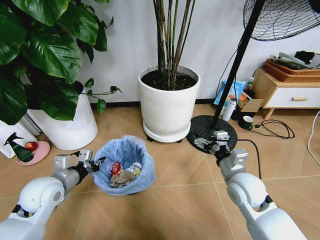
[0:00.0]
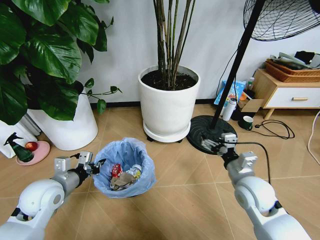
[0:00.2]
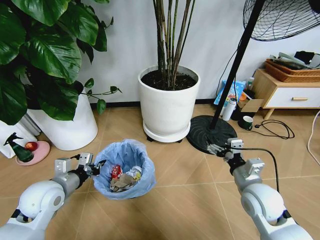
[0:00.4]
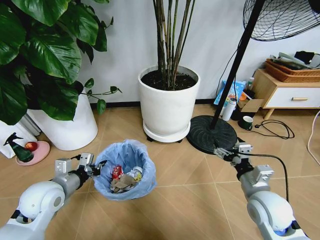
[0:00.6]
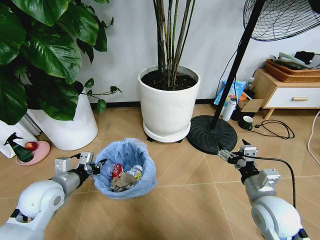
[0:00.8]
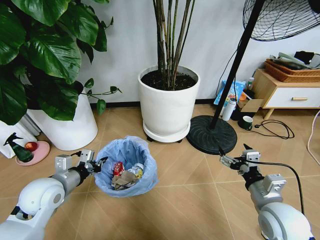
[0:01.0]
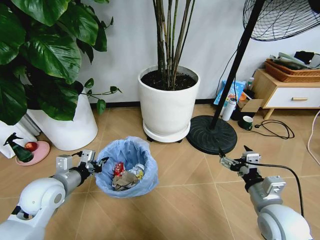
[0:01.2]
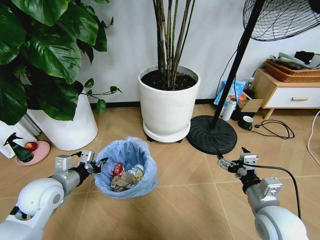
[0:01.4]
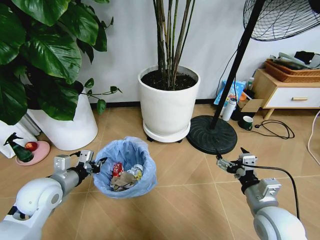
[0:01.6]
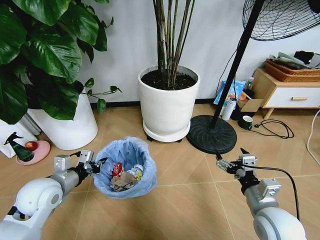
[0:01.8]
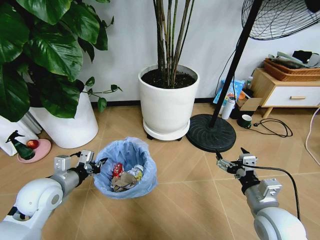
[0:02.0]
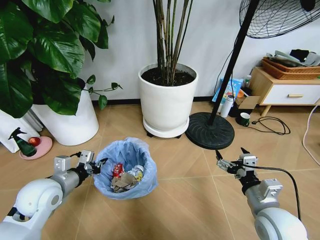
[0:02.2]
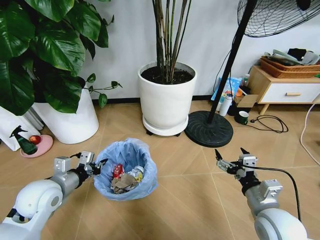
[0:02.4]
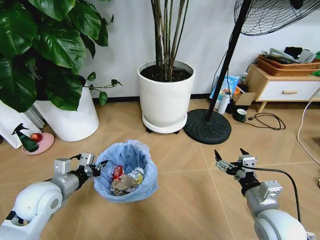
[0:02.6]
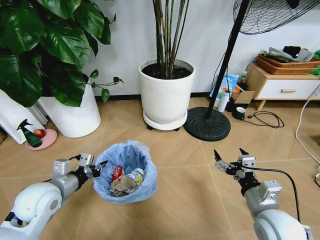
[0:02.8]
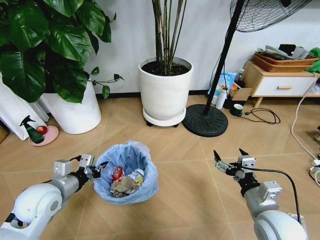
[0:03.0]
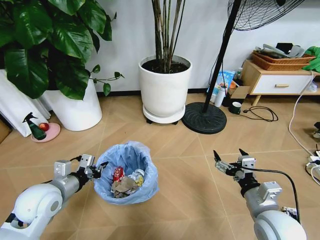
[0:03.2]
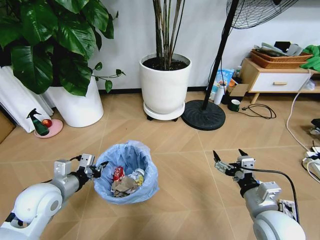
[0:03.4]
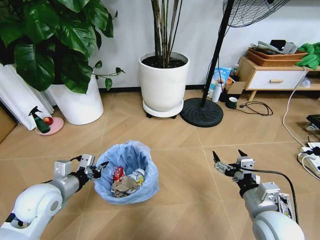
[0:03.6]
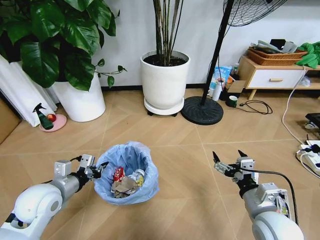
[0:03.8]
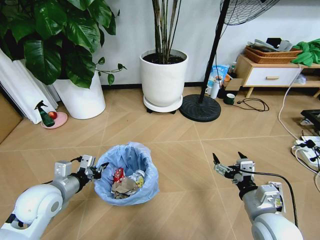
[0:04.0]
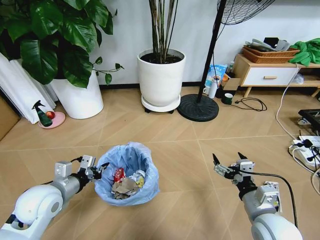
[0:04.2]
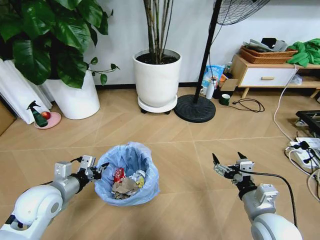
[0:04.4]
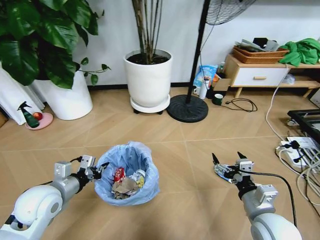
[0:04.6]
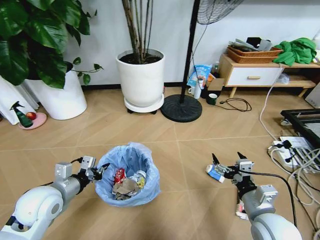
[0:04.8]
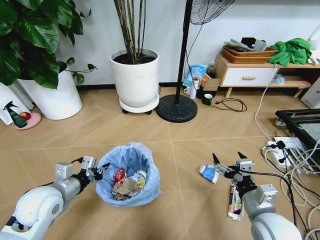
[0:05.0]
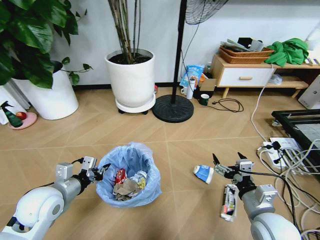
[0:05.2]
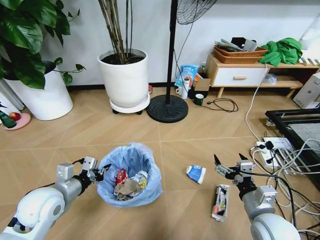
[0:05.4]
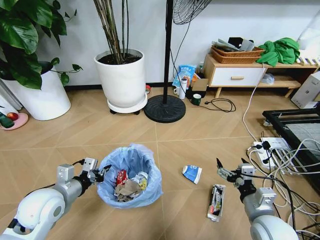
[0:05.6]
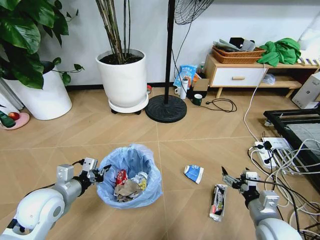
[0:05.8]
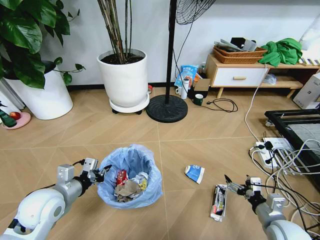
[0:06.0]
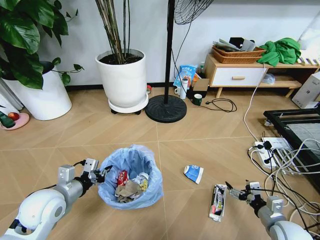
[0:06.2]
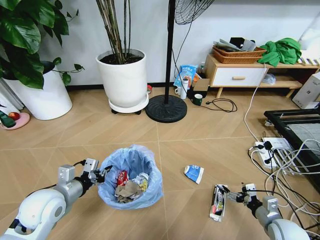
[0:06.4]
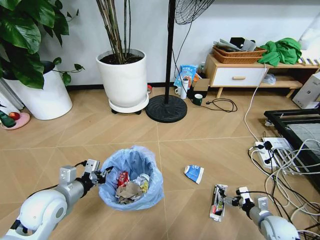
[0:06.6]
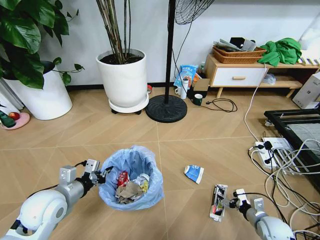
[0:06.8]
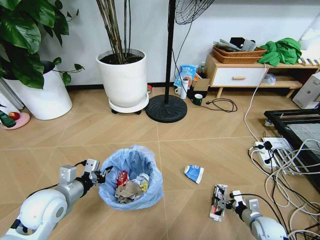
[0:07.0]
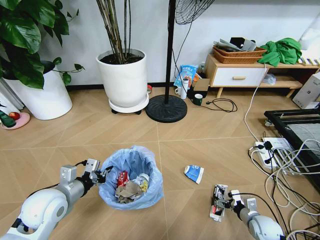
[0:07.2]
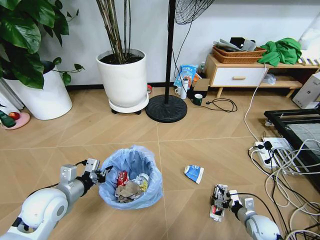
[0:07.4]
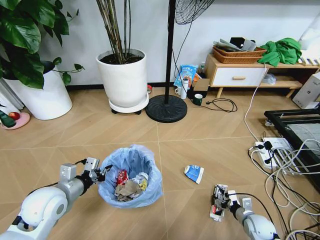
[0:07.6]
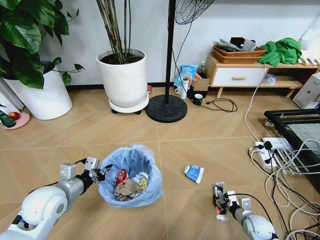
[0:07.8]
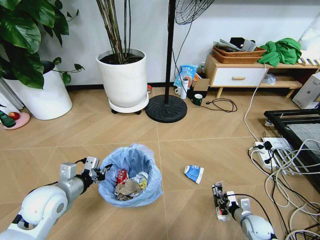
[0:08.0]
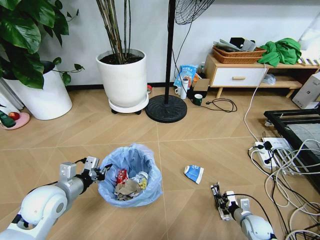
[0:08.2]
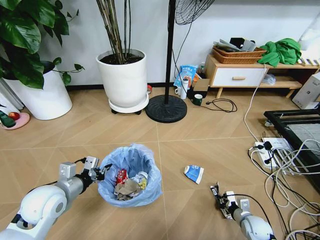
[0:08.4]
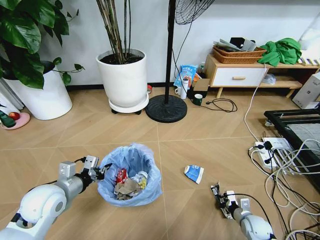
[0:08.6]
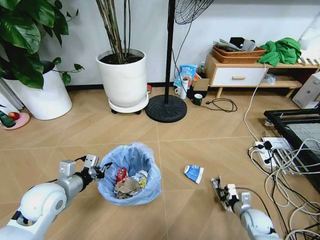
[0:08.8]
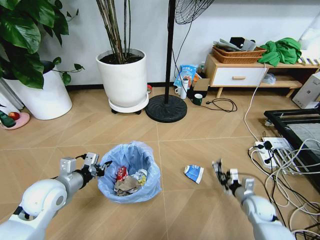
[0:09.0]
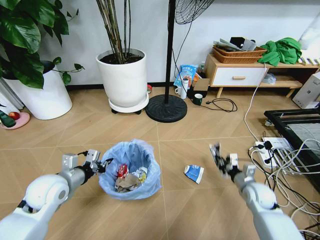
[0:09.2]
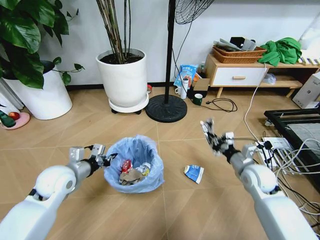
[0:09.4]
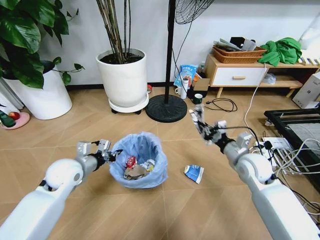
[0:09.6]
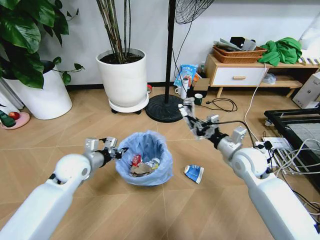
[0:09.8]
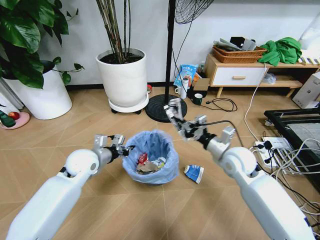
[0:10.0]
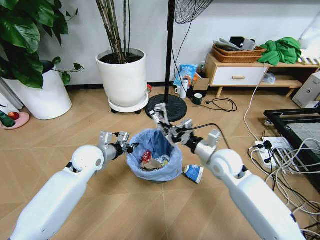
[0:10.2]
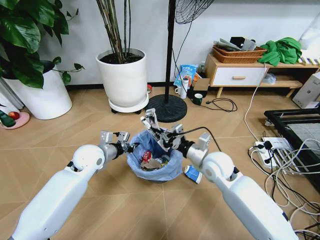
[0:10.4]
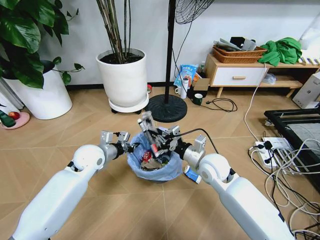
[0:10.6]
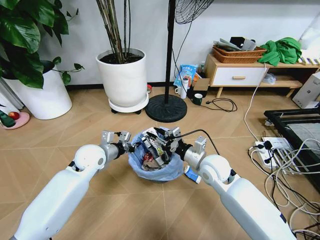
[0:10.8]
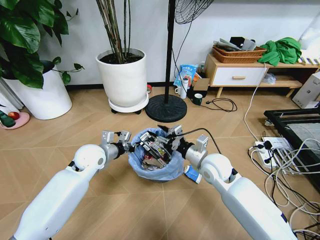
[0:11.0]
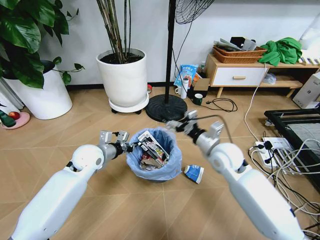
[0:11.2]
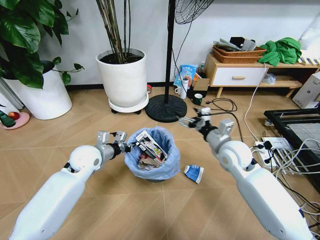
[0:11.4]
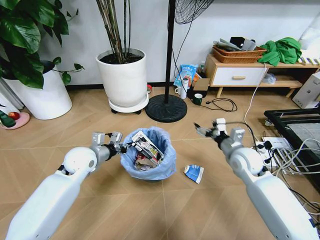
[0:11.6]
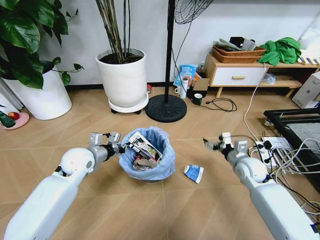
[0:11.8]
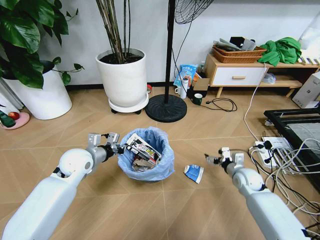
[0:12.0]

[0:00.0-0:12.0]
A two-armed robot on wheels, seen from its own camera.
Task of the whole recording: Pick up the trash bin and place the garbage on the floor into it.
0:00.0 to 0:01.6: The right gripper goes roughly 10 cm backward.
0:04.4 to 0:06.0: The right gripper moves to the right and downward, roughly 10 cm.
0:06.0 to 0:07.6: The right gripper moves downward, some 15 cm.
0:07.6 to 0:09.0: The right gripper moves upward and forward, roughly 10 cm, and closes its fingers.
0:09.0 to 0:10.4: The right gripper heads to the left, upward and forward, covering roughly 30 cm. Meanwhile the left gripper moves forward and to the right, about 15 cm.
0:10.4 to 0:12.0: The right gripper is displaced to the right and downward by about 20 cm, and opens up.

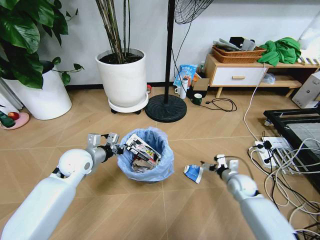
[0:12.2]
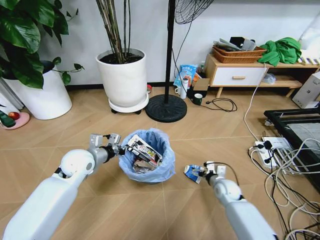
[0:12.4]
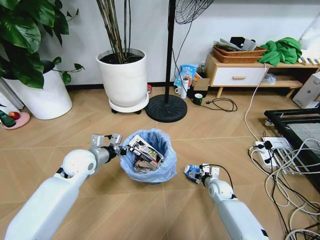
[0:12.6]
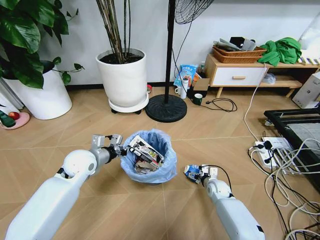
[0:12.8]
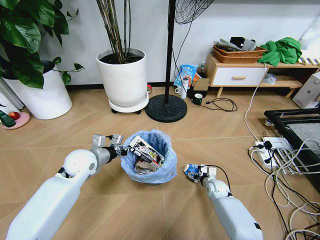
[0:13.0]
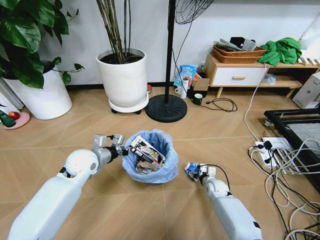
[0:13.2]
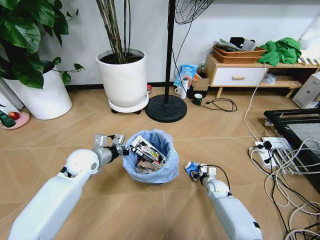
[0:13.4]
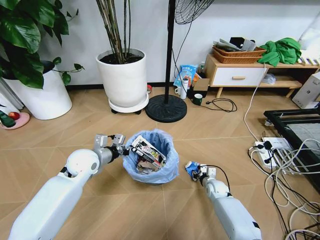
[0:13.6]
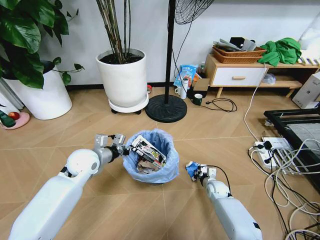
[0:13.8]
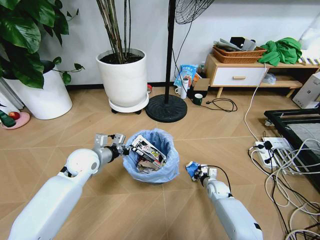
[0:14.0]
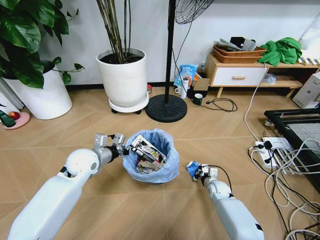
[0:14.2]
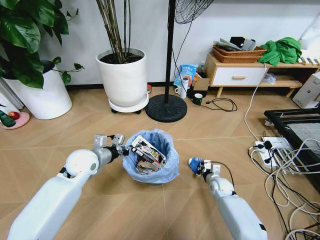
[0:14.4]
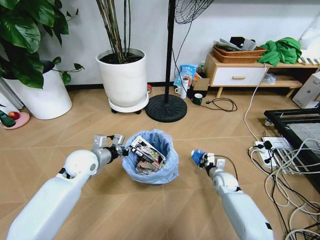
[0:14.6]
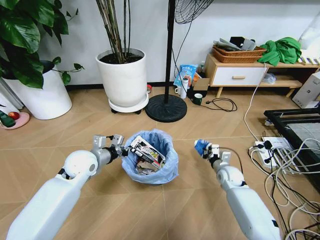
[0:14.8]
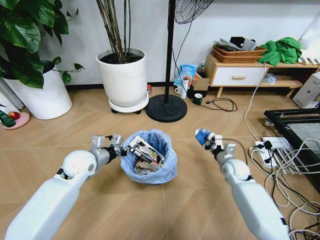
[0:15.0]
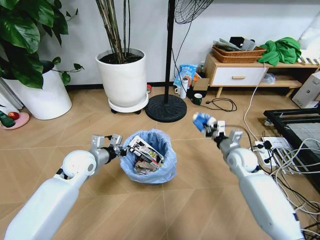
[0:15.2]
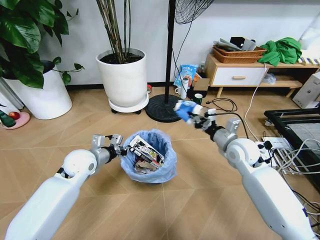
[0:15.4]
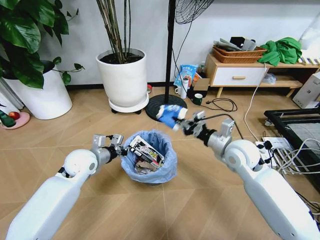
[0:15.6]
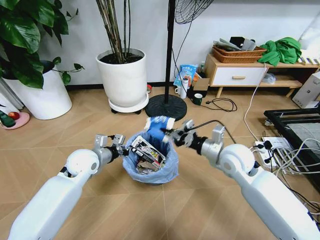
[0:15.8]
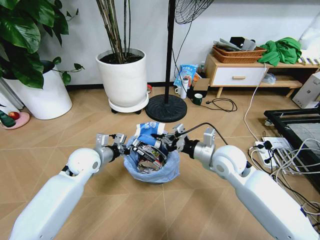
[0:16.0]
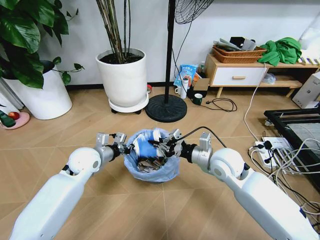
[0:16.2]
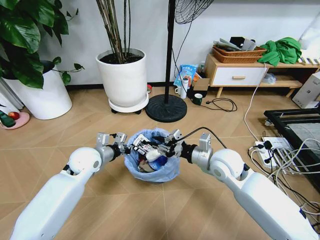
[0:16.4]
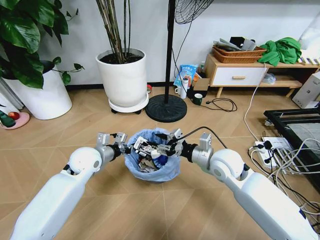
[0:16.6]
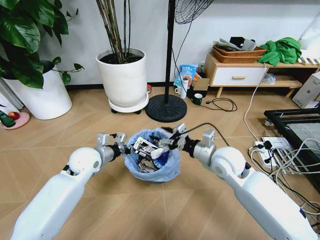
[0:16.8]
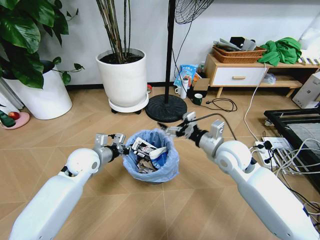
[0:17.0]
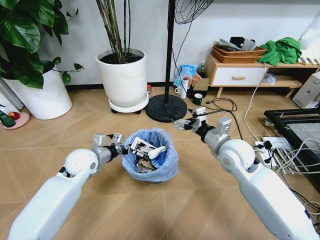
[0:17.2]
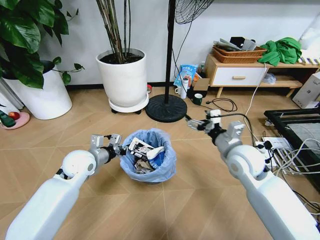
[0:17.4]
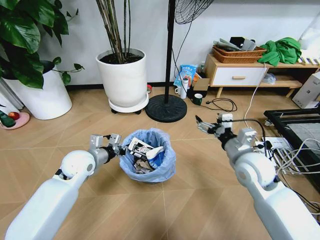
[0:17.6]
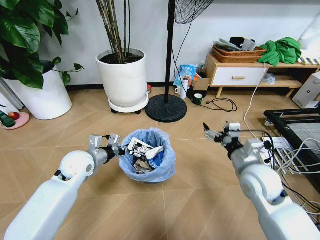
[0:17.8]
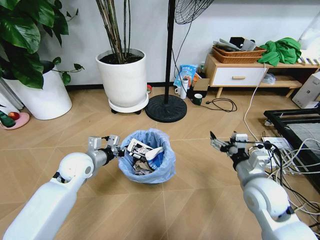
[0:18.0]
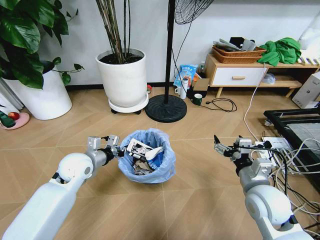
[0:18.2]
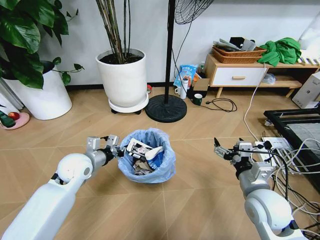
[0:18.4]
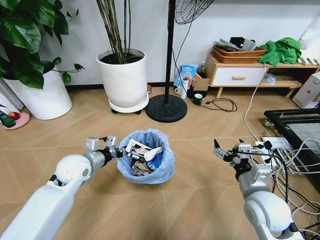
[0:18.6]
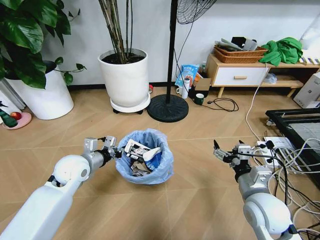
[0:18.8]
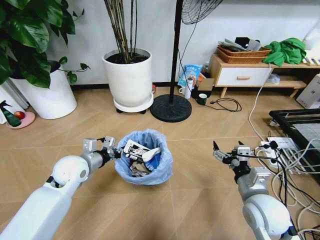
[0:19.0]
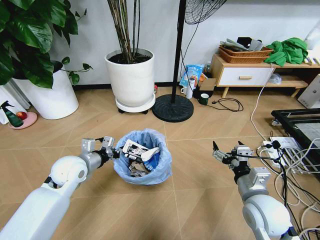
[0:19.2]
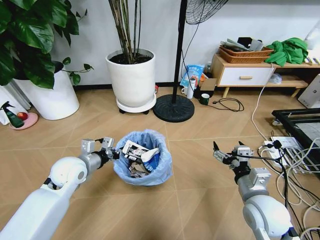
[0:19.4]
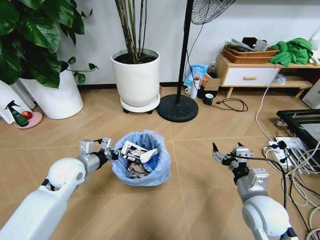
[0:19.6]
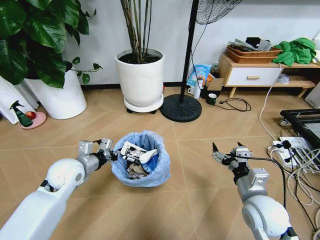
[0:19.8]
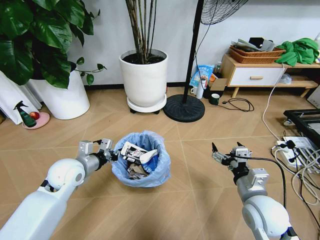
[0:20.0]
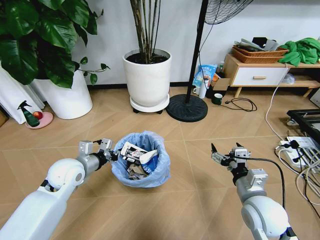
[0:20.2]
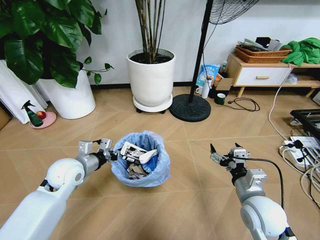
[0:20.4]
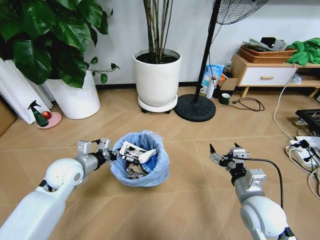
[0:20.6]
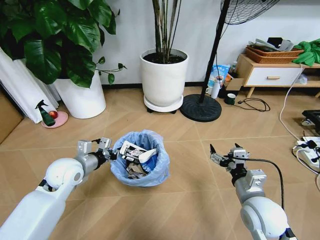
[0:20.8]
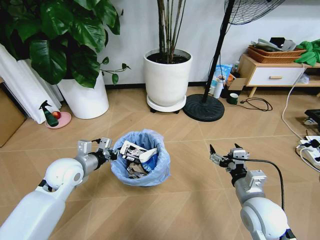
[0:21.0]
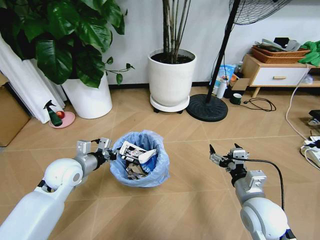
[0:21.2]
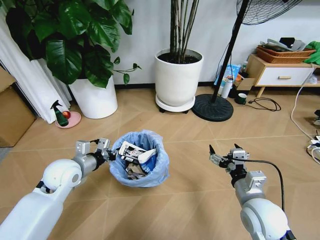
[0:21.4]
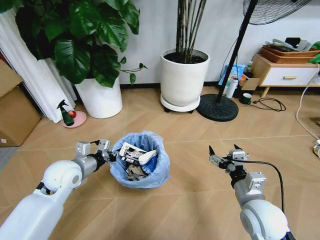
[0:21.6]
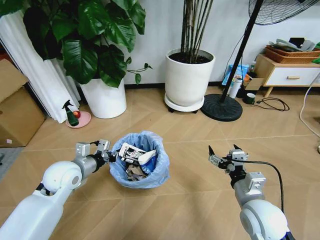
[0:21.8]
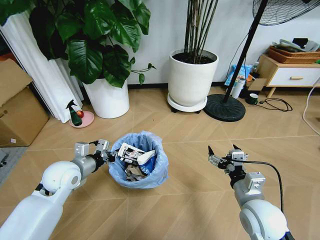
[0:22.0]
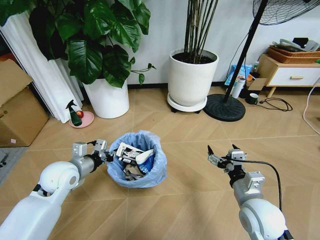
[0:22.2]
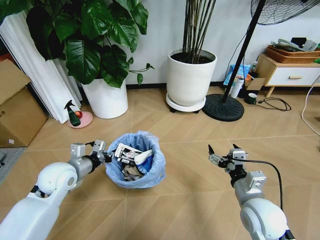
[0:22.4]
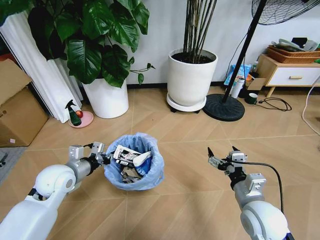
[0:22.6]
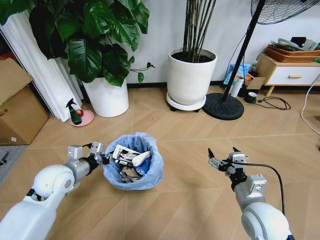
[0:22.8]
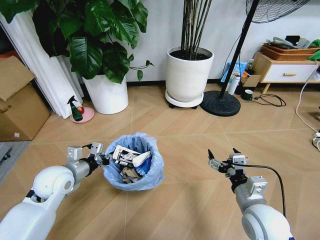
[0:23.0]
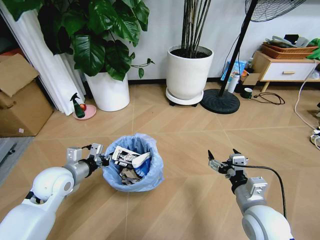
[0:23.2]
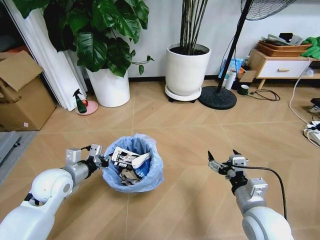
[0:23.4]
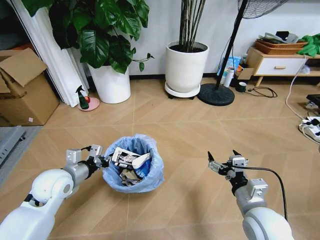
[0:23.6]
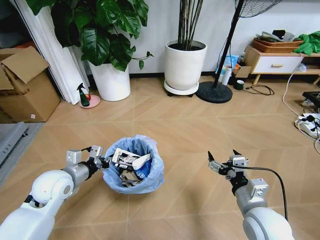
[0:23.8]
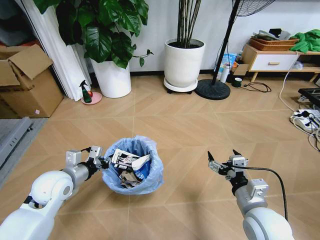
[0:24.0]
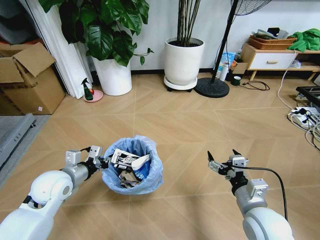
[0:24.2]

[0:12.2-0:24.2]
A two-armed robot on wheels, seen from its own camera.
Task of the whole recording: Pick up the trash bin and place the garbage on the floor into it.
0:12.2 to 0:13.8: The right gripper shifts roughly 10 cm downward and to the left, and closes its fingers.
0:13.8 to 0:15.2: The right gripper is displaced upward by approximately 25 cm.
0:15.2 to 0:16.6: The right gripper is displaced to the left, upward and backward by roughly 15 cm, and opens.
0:16.6 to 0:18.2: The right gripper travels backward and to the right by roughly 15 cm, and opens.
